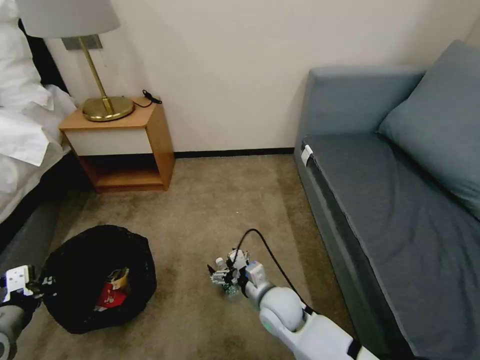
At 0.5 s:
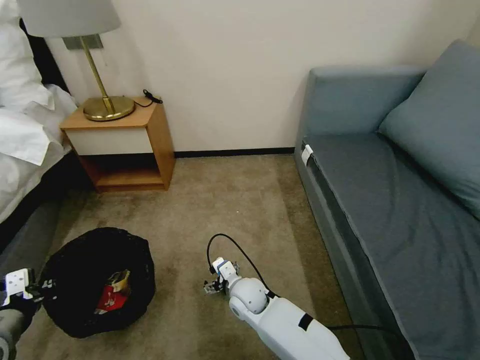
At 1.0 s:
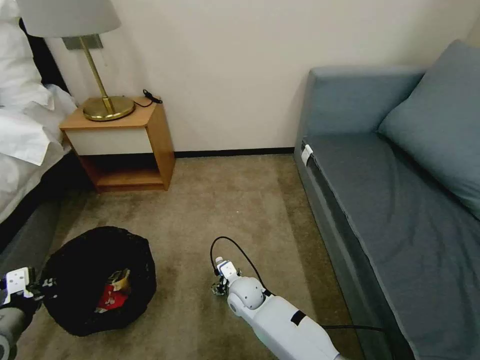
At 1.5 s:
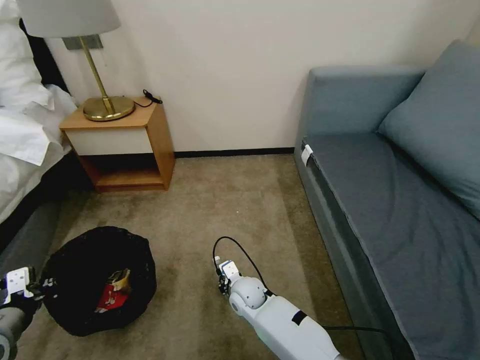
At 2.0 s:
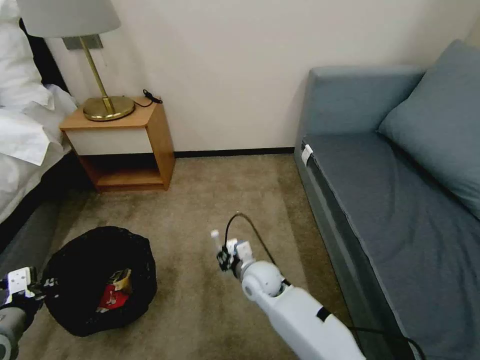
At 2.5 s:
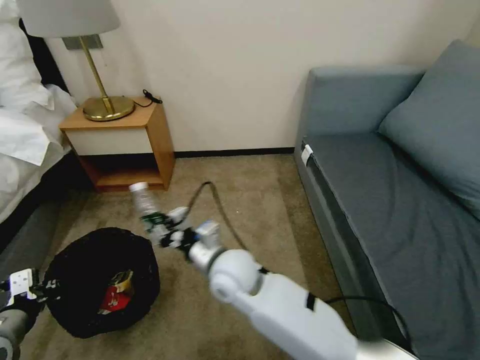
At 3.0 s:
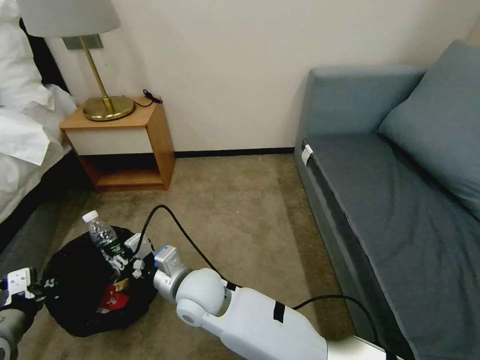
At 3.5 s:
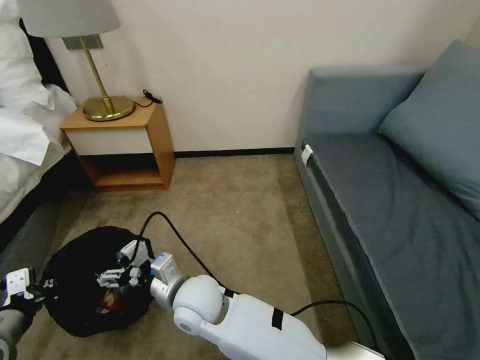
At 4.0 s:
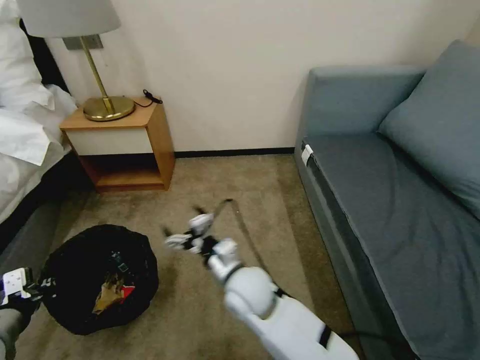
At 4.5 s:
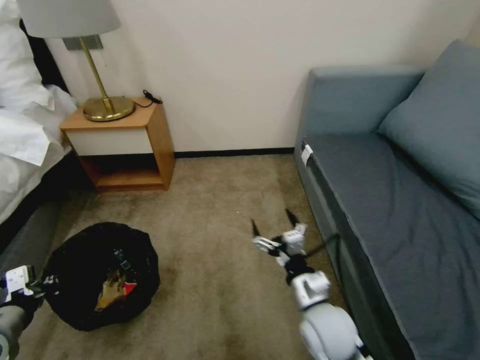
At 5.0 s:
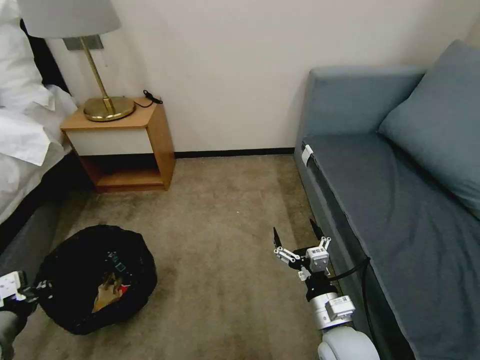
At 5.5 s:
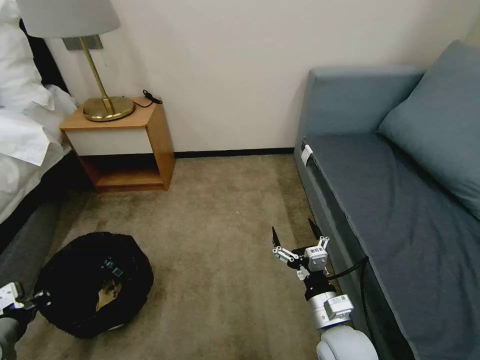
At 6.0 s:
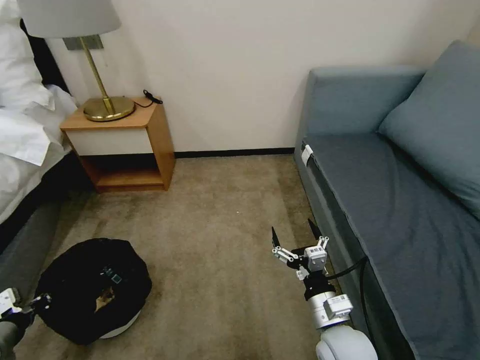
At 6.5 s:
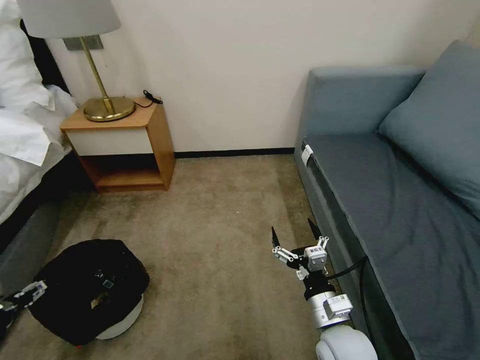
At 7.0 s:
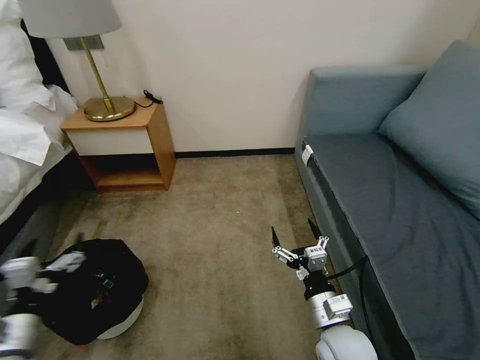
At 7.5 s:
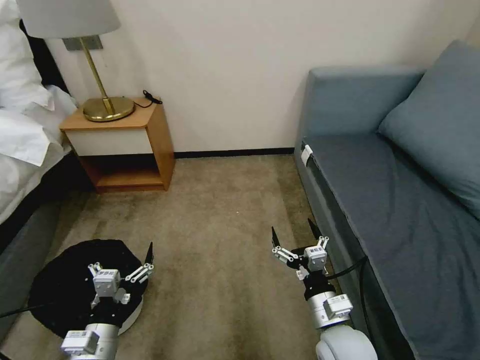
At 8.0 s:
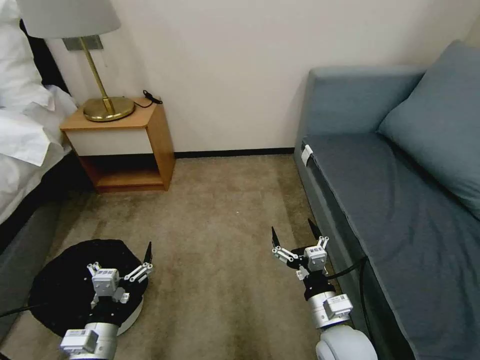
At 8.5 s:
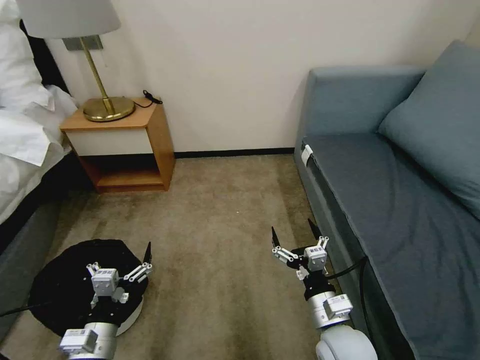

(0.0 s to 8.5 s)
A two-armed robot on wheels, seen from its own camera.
Task of the whole recording: Pick up the trash bin, then pick up the garbage on the floor and place it into the trash bin.
0.0 s - 2.0 s: The right gripper shifts approximately 5 cm forward, reaches some 10 cm downward, then returns, and closes.
2.0 s - 4.0 s: The right gripper goes about 10 cm upward and backward, moves roughly 15 cm to the left and comes back, and opens up.
4.0 s - 6.5 s: The right gripper travels to the right and backward by approximately 20 cm; the left gripper opens up.
6.5 s - 8.5 s: The left gripper shifts approximately 20 cm to the right and downward.

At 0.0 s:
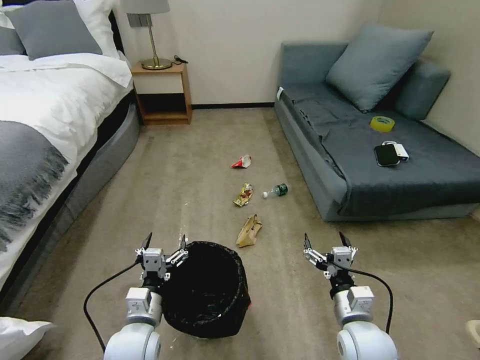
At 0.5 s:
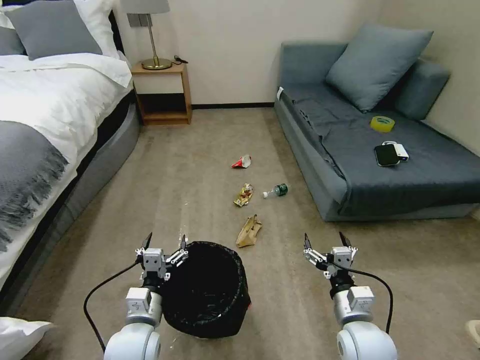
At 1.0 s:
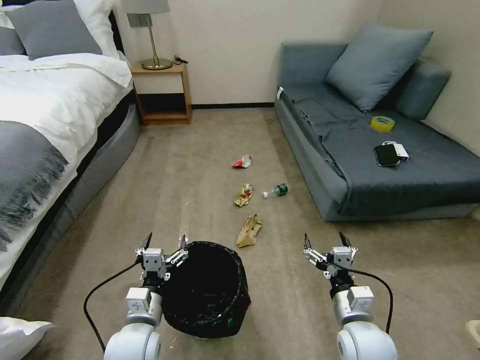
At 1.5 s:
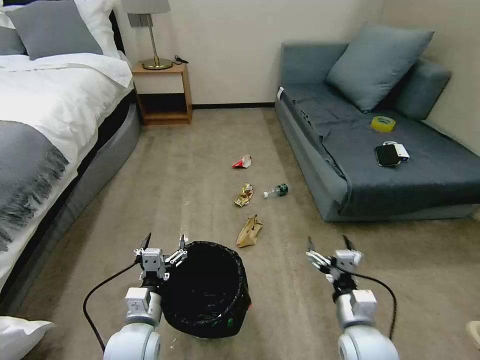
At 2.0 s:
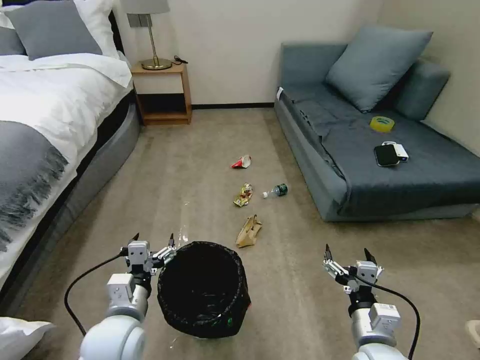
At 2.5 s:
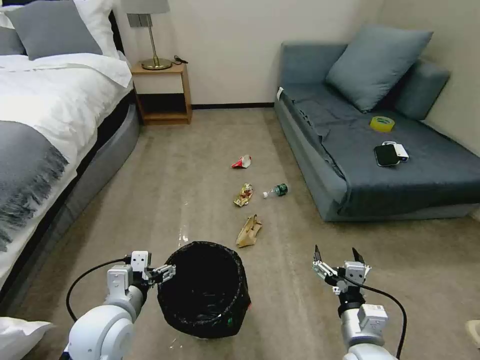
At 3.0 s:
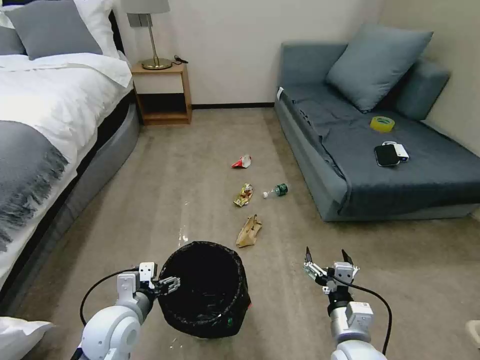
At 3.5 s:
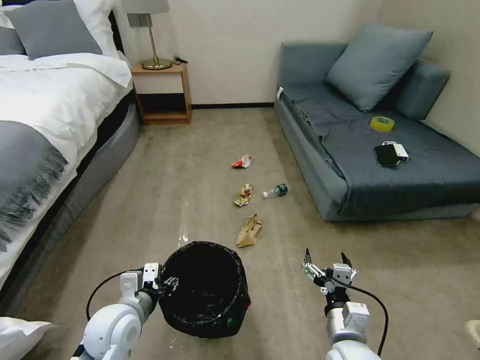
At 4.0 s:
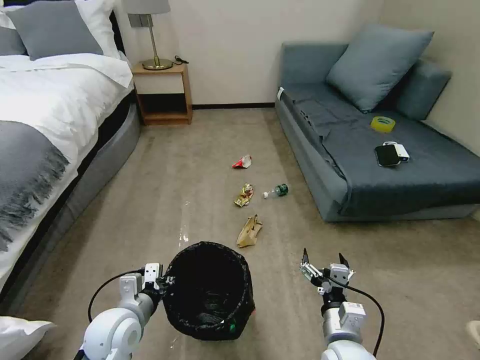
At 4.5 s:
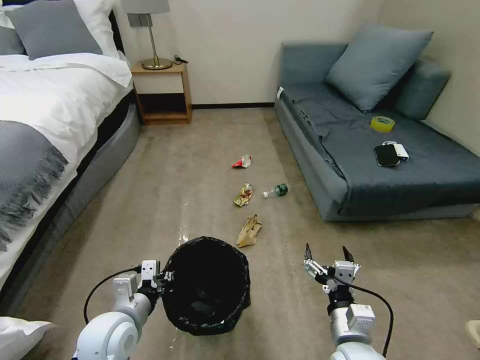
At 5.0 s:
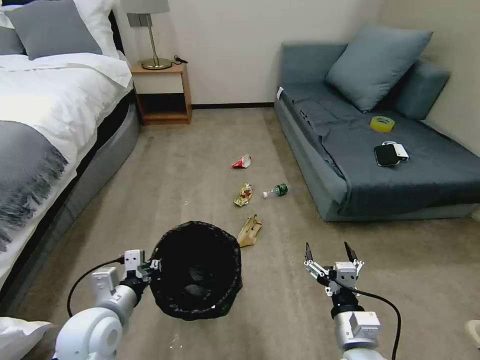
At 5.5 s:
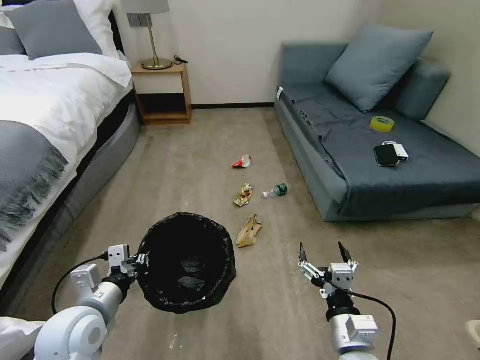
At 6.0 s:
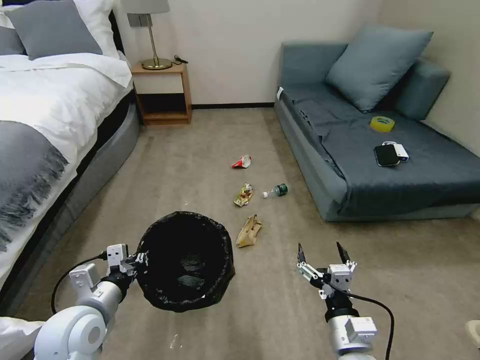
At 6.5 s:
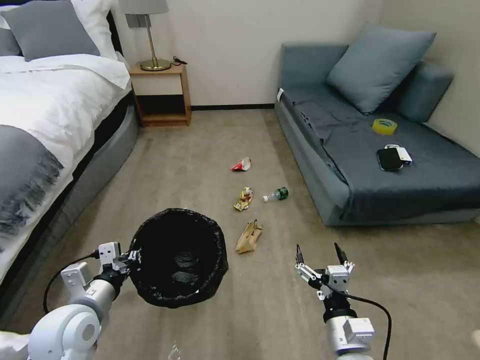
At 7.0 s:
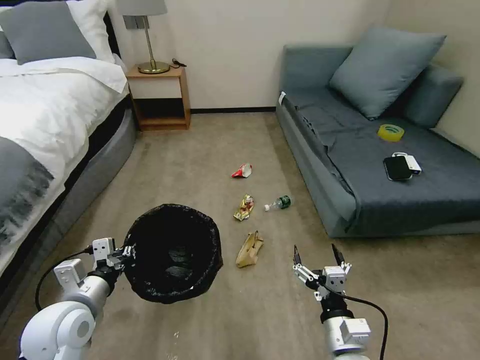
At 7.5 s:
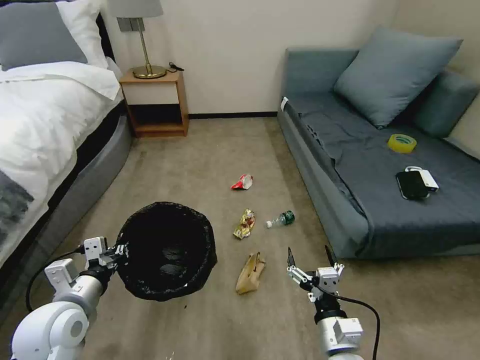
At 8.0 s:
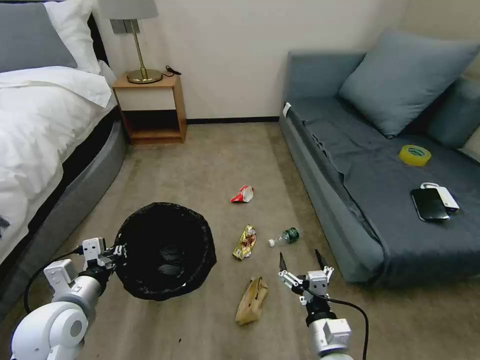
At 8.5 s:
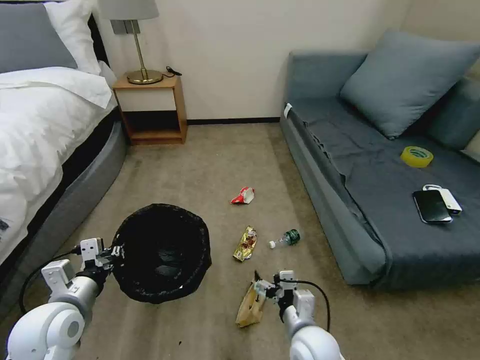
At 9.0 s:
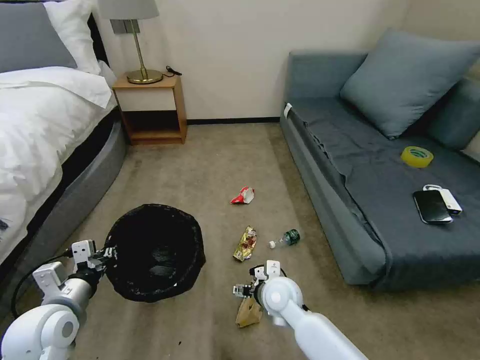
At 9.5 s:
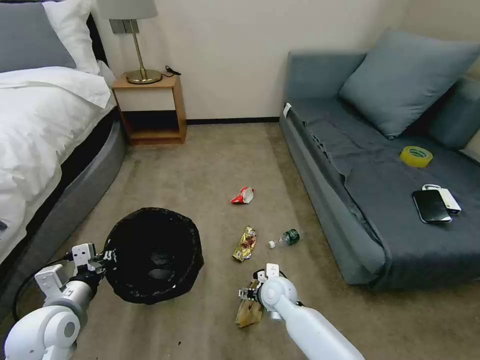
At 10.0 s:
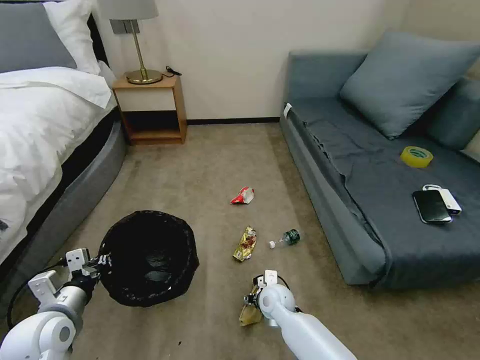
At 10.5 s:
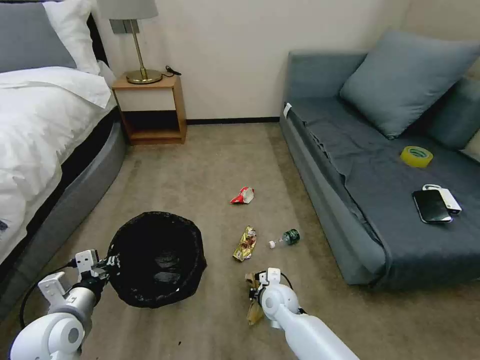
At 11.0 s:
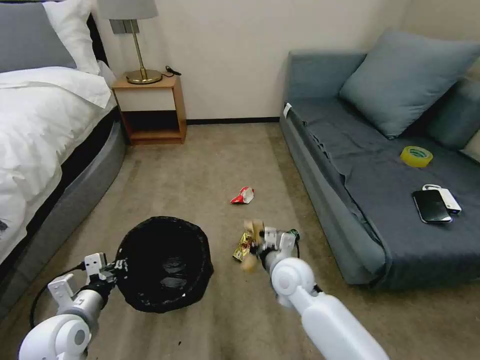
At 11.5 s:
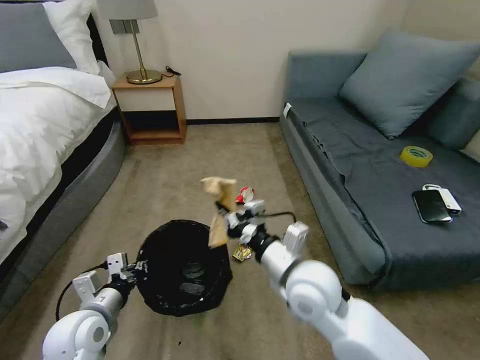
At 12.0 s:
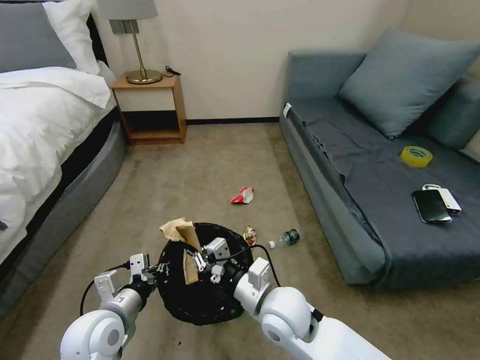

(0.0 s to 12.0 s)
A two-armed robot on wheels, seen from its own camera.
Task of the whole recording: Pick up the trash bin, then pick up the garbage on the floor and place it into the trash bin.
2.0 s - 4.0 s: The left gripper closes up; the right gripper ends up about 5 cm from where it was.
4.0 s - 6.0 s: The left gripper travels upward by some 5 cm.
8.0 s - 10.0 s: The right gripper shifts about 20 cm forward, downward and to the left.
10.0 s - 12.0 s: The right gripper goes some 20 cm upward and backward, and closes its fingers. The left gripper moves to the right, about 10 cm.

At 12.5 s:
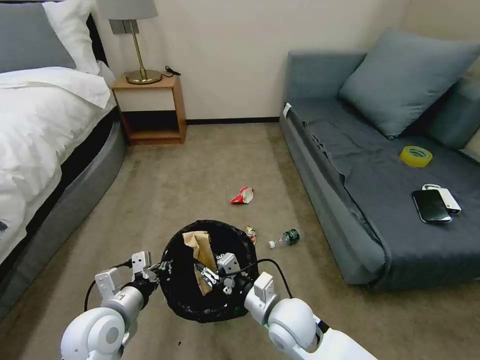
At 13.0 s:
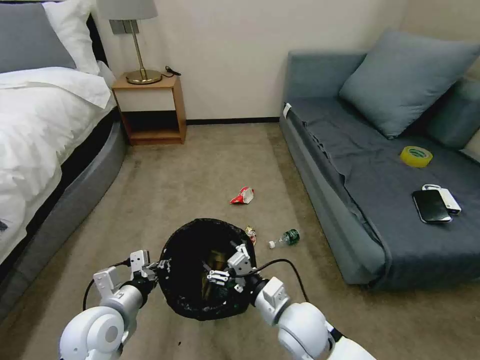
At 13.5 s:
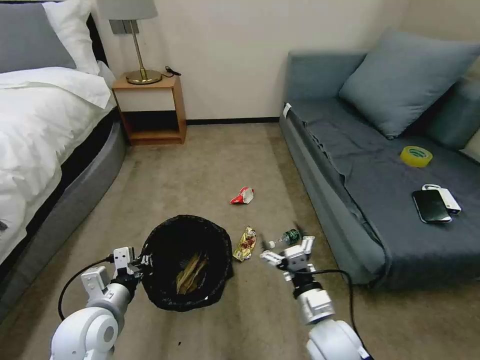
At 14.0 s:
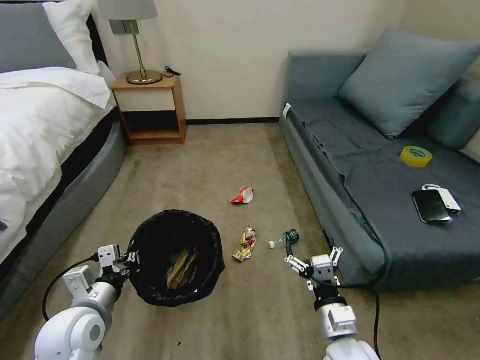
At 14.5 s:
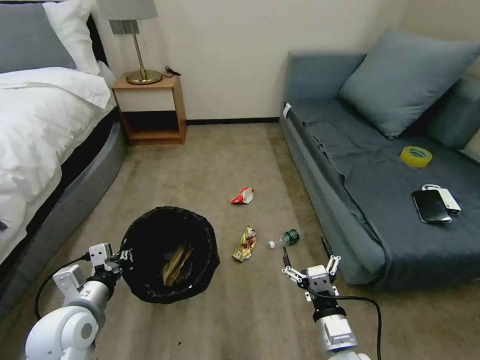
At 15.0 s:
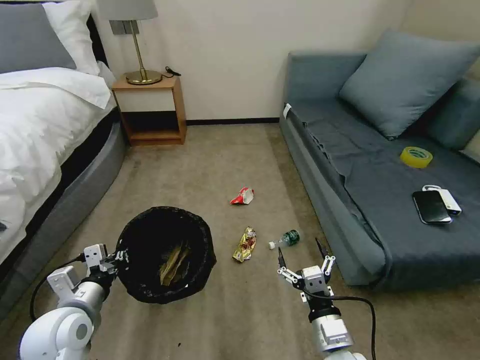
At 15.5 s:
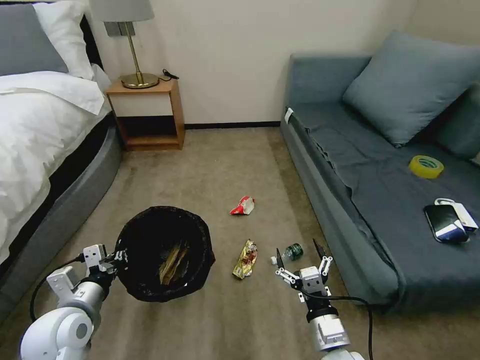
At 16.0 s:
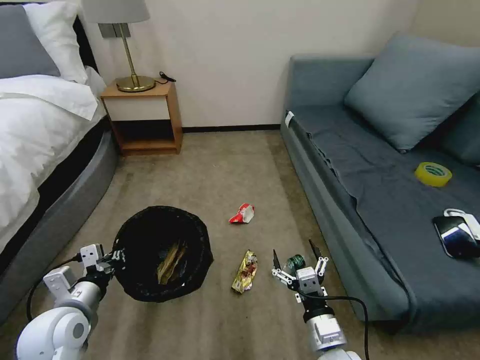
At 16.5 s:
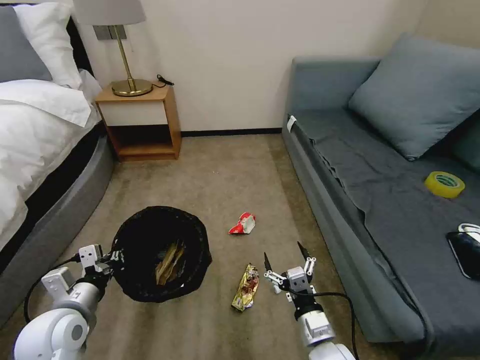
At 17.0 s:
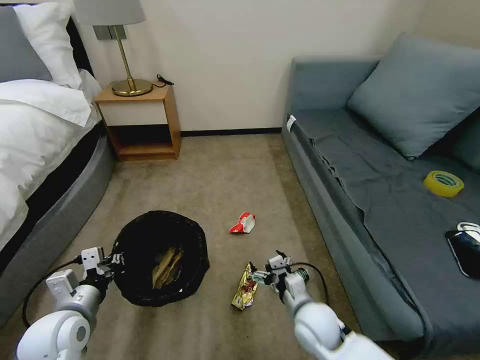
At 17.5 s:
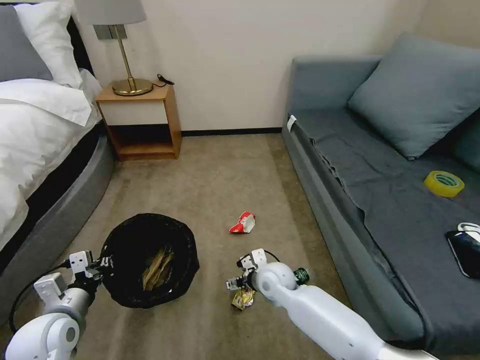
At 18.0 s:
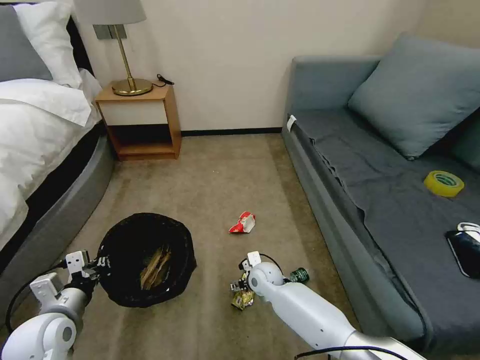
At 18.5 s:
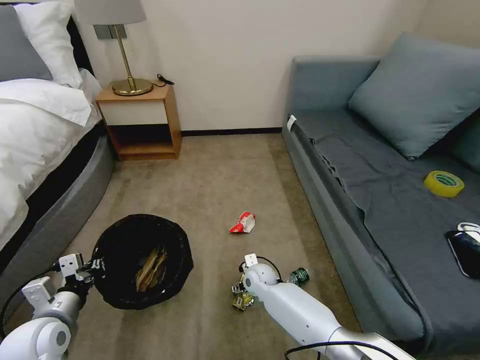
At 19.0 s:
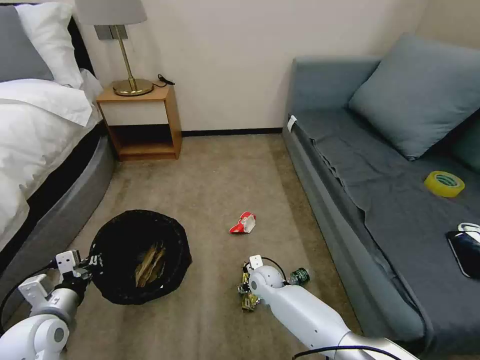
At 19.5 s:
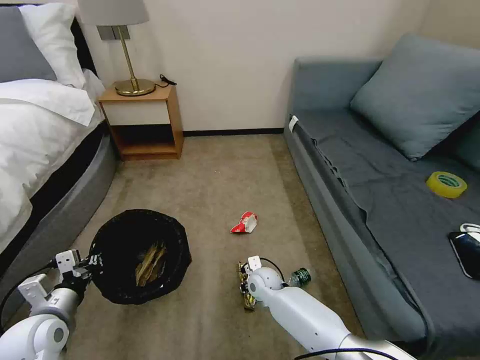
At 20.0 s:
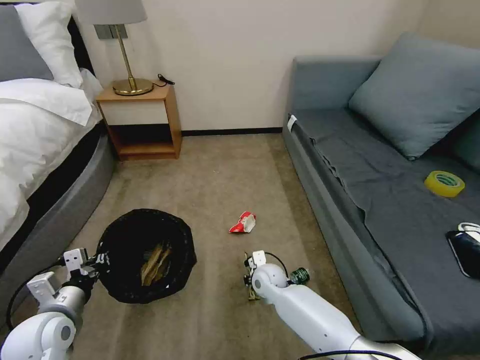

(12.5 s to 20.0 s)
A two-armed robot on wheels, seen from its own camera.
Task of the whole recording: Pick up the trash bin, then pick up the garbage on the floor and place it into the trash bin.
12.5 s - 14.5 s: The right gripper heads to the right and backward, covering some 15 cm, and opens its fingers. Meanwhile the left gripper goes some 5 cm to the left.
16.5 s - 18.0 s: The right gripper moves forward and to the left, roughly 25 cm.
18.0 s - 20.0 s: The right gripper closes its fingers.
